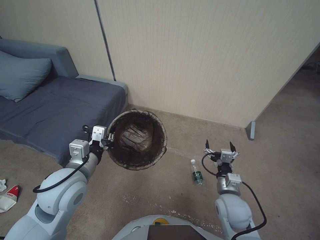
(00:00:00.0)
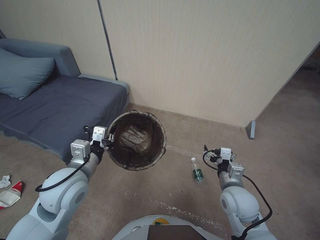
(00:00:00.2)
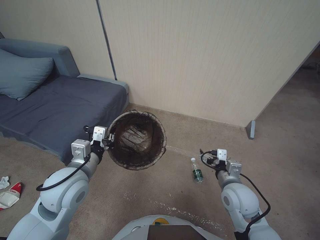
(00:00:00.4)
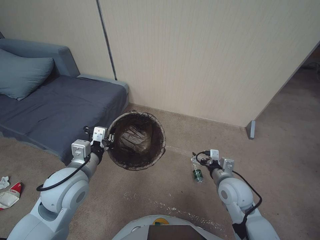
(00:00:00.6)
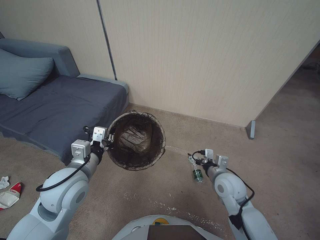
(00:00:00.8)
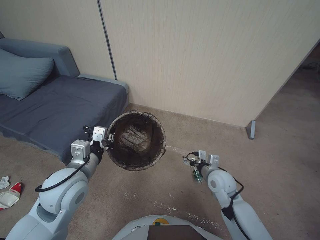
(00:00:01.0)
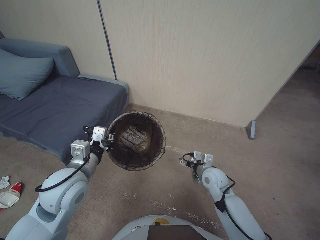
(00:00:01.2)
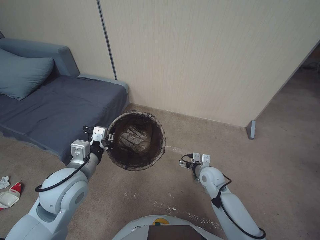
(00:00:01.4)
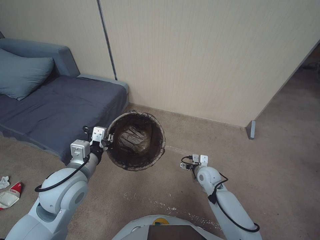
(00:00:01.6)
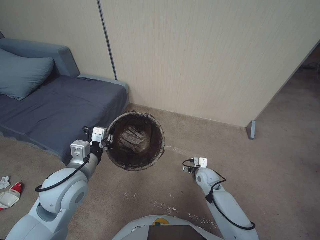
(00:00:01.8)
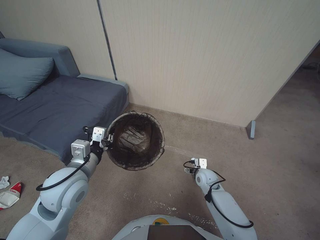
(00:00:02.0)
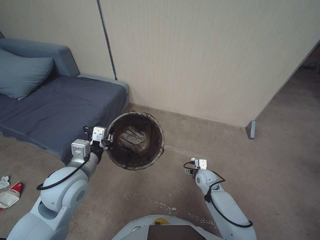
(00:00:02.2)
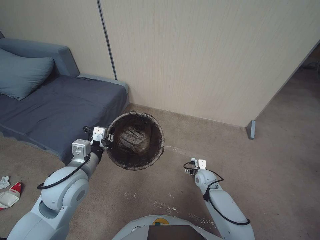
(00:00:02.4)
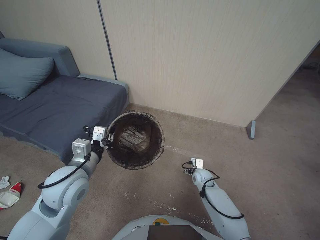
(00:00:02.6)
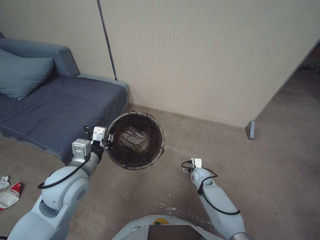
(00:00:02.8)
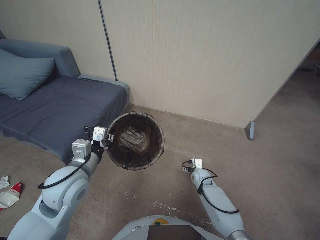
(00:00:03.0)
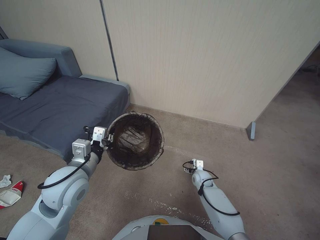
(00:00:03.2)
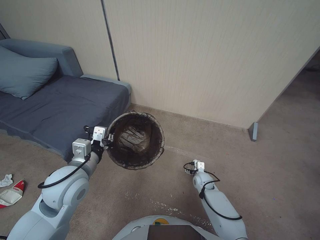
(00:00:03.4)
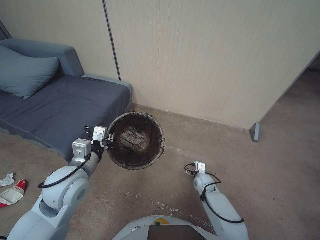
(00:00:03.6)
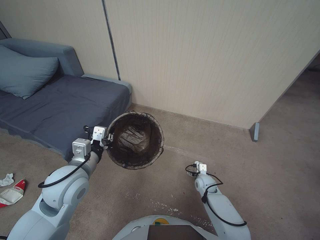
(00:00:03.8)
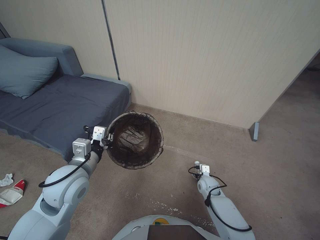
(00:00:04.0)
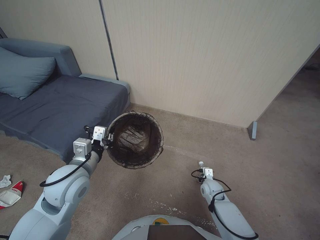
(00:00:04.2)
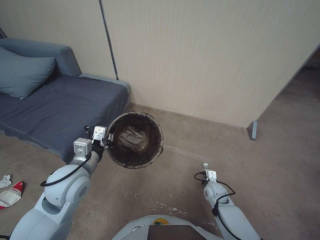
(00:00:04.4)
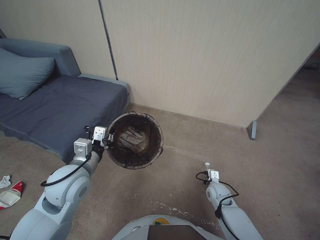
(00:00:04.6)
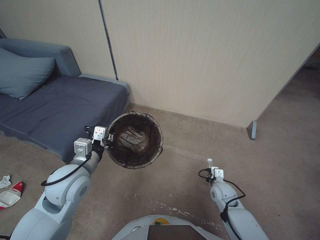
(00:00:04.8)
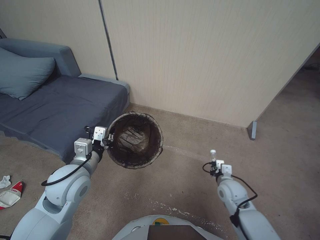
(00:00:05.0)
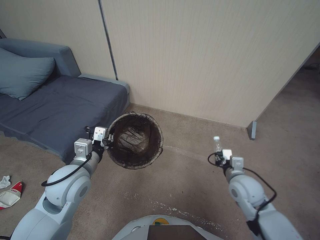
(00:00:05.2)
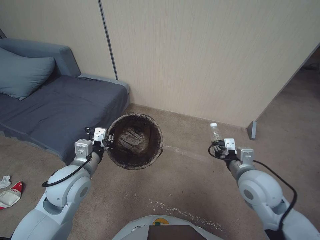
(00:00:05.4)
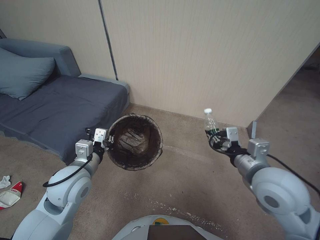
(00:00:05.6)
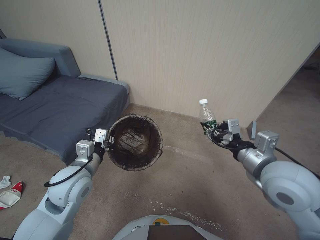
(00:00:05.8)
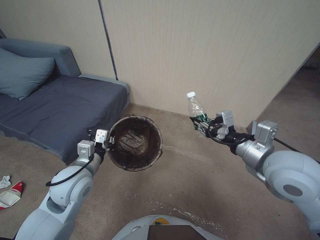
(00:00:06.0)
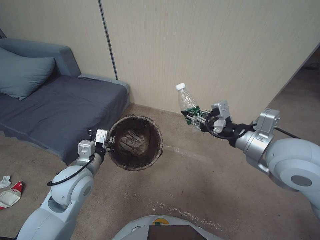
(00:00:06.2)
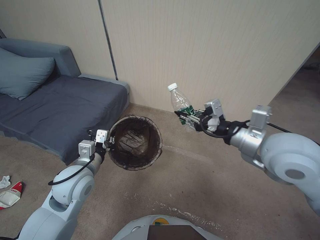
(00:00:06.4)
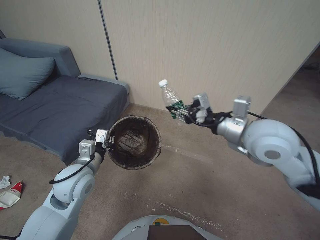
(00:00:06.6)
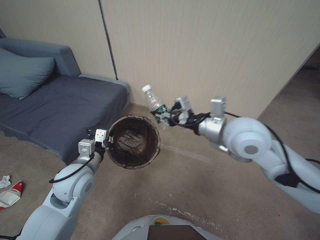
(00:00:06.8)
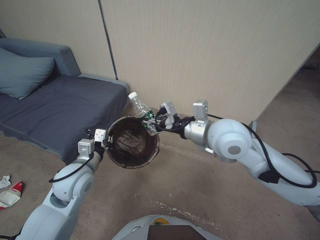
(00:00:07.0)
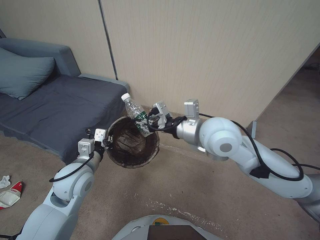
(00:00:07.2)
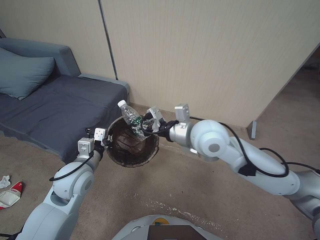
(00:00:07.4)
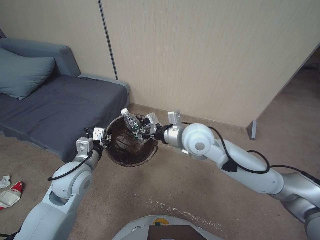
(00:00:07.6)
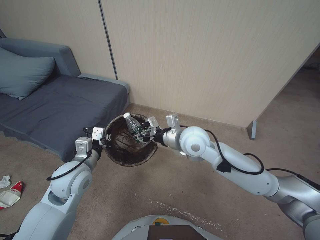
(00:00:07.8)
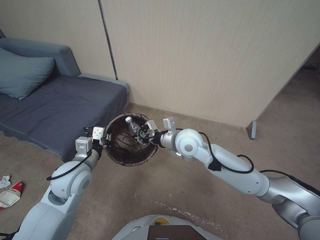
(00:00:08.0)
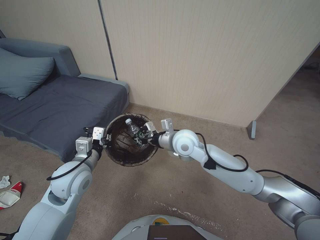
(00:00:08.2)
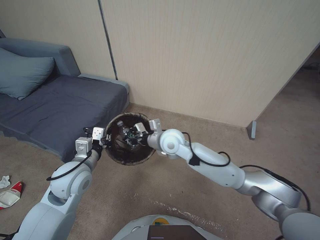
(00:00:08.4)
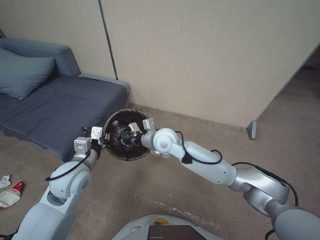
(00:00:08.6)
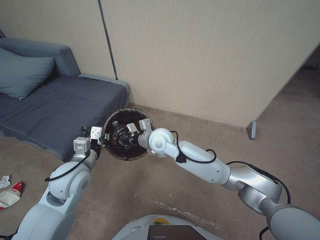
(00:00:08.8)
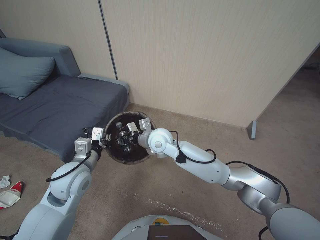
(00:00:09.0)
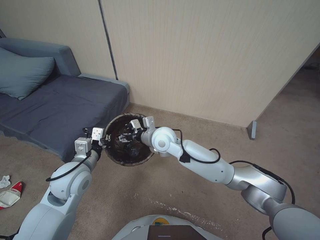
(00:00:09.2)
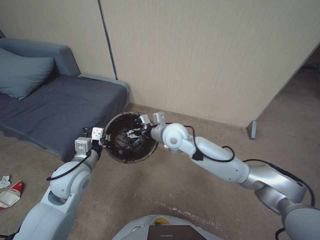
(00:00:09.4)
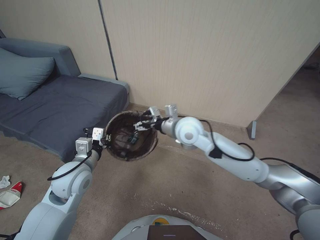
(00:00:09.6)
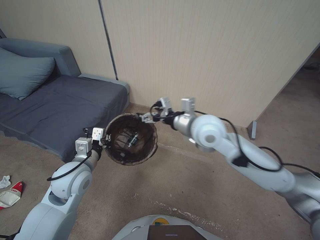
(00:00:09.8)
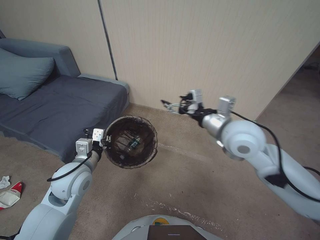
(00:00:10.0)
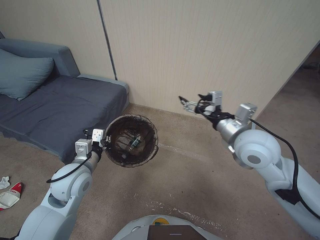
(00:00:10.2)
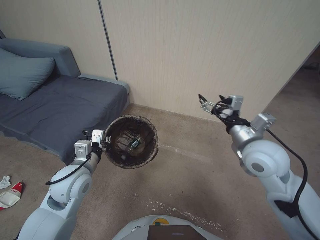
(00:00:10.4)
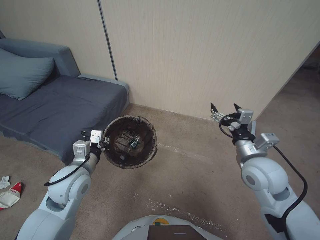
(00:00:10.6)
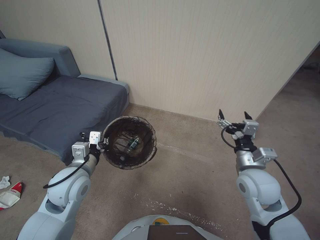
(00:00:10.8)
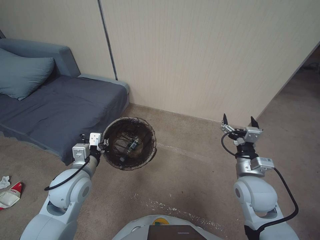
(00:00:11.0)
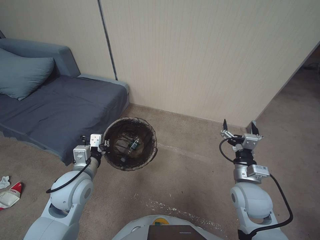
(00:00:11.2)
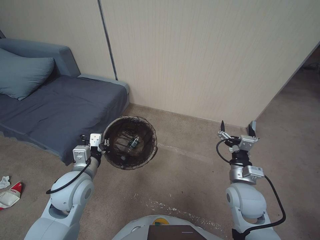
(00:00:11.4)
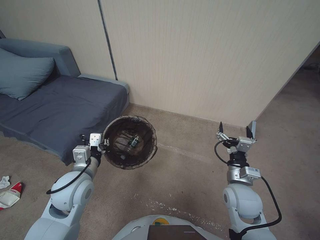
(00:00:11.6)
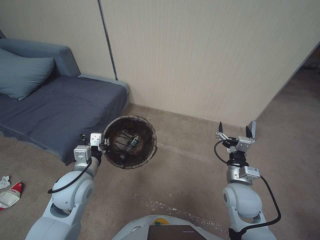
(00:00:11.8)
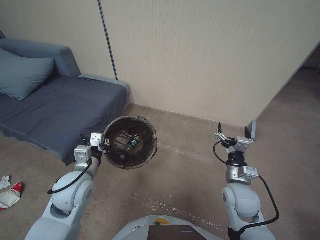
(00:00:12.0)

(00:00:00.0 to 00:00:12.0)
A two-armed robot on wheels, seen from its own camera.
Task of the whole recording: Pick up the trash bin, then pick up the garbage from the floor and place it into the trash bin.
00:00:00.0 - 00:00:01.6: The right gripper goes about 15 cm forward and downward.
00:00:01.6 - 00:00:03.0: The right gripper moves downward, roughly 10 cm.
00:00:03.0 - 00:00:04.4: The right gripper goes roughly 5 cm backward, and closes.
00:00:04.4 - 00:00:06.0: The right gripper goes roughly 40 cm upward.
00:00:06.0 - 00:00:07.6: The right gripper travels to the left and forward by roughly 20 cm.
00:00:07.6 - 00:00:09.0: The right gripper moves to the left, downward and forward, about 15 cm.
00:00:09.0 - 00:00:10.4: The right gripper heads to the right and backward, covering about 30 cm, and opens up.
00:00:10.4 - 00:00:12.0: The right gripper goes some 20 cm downward.

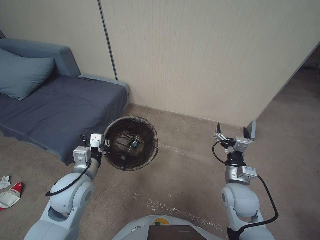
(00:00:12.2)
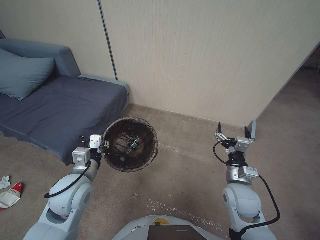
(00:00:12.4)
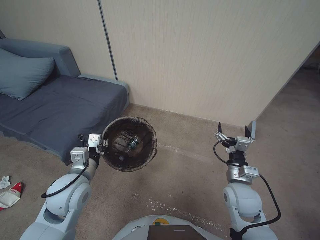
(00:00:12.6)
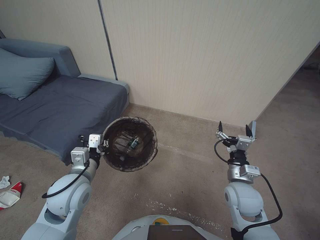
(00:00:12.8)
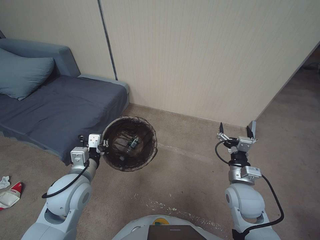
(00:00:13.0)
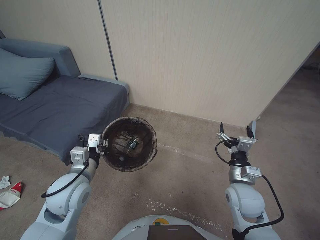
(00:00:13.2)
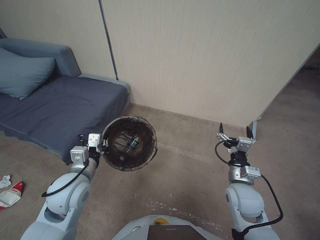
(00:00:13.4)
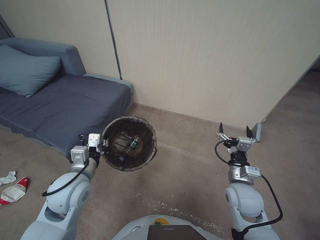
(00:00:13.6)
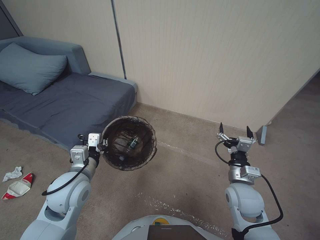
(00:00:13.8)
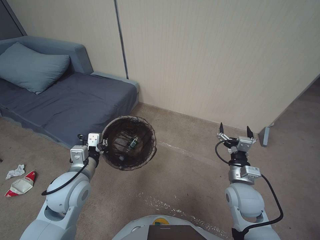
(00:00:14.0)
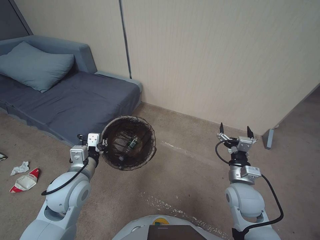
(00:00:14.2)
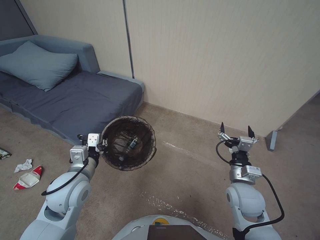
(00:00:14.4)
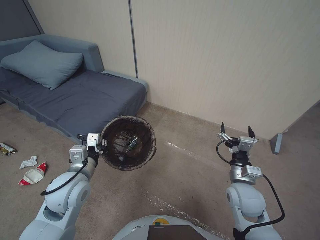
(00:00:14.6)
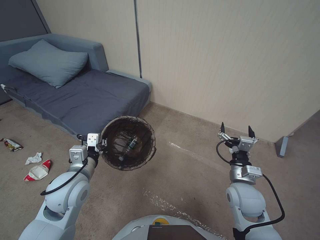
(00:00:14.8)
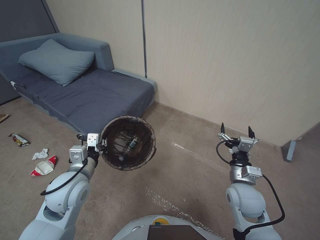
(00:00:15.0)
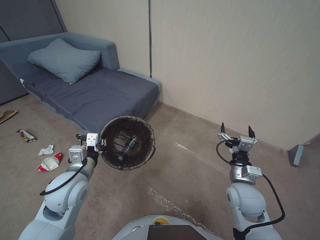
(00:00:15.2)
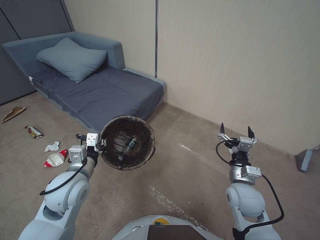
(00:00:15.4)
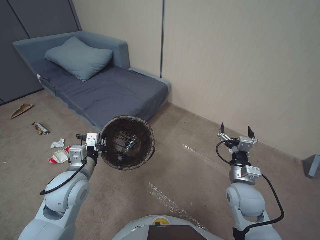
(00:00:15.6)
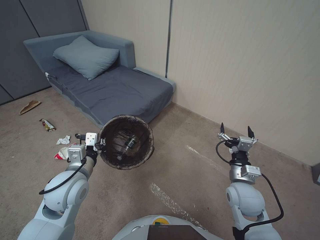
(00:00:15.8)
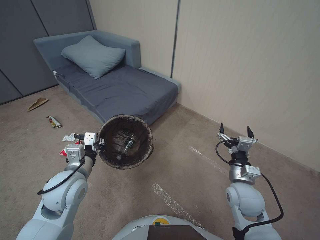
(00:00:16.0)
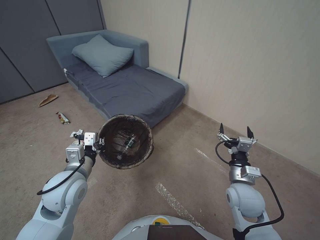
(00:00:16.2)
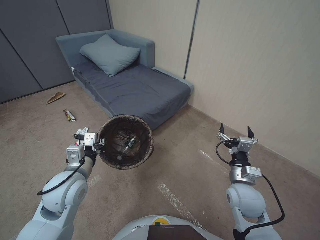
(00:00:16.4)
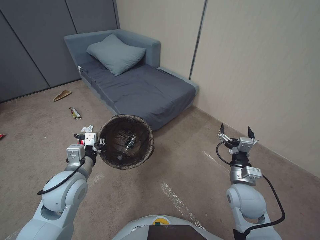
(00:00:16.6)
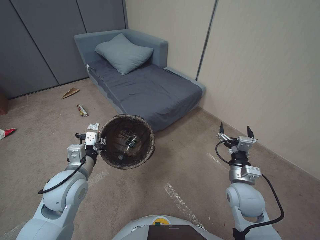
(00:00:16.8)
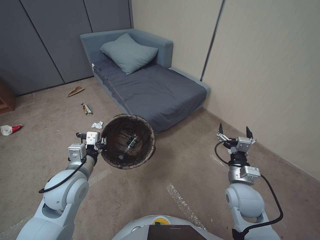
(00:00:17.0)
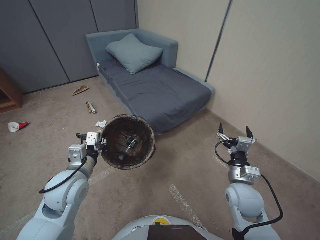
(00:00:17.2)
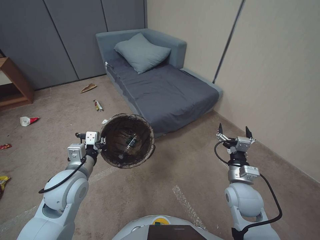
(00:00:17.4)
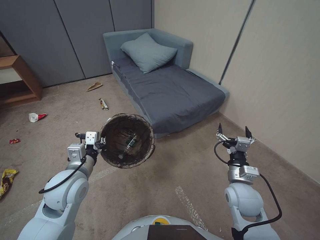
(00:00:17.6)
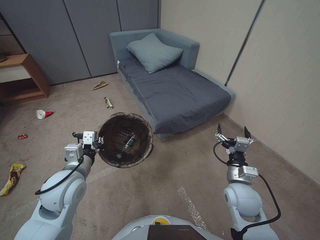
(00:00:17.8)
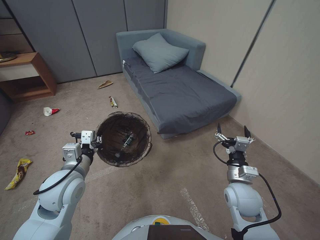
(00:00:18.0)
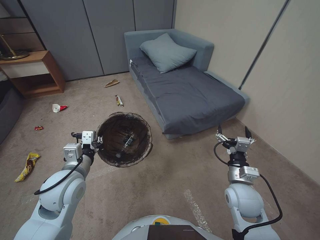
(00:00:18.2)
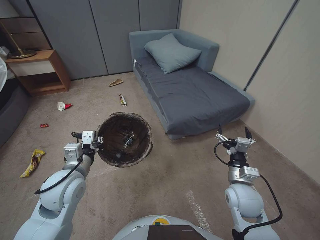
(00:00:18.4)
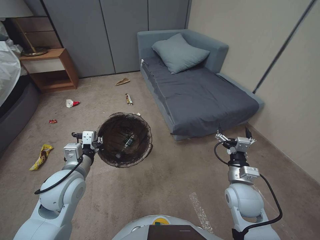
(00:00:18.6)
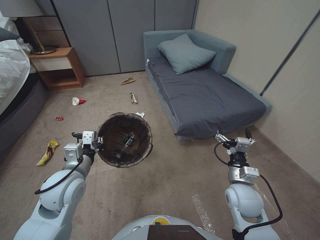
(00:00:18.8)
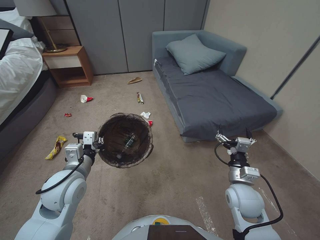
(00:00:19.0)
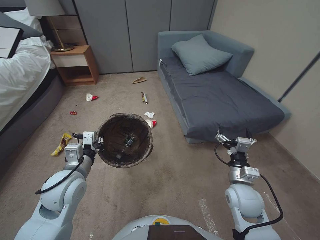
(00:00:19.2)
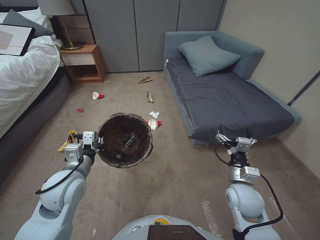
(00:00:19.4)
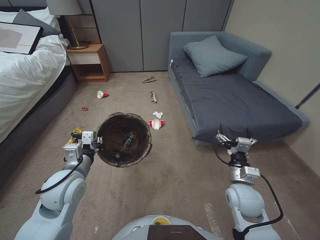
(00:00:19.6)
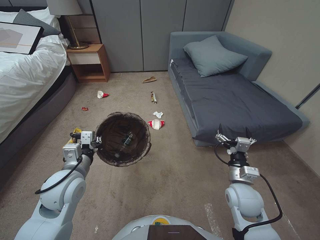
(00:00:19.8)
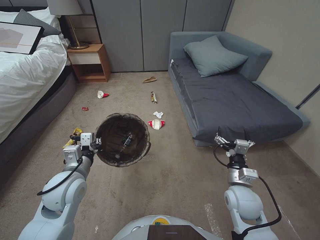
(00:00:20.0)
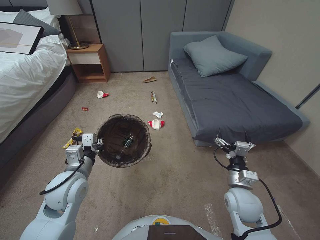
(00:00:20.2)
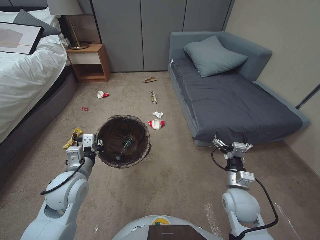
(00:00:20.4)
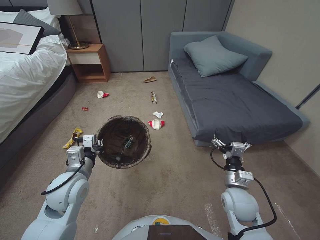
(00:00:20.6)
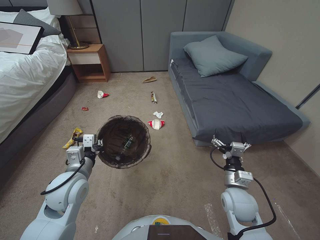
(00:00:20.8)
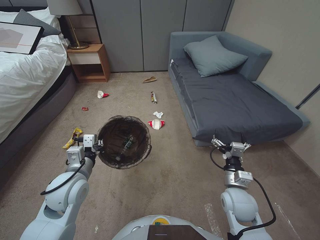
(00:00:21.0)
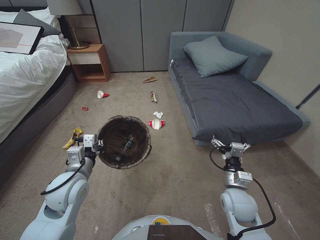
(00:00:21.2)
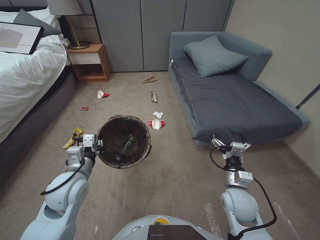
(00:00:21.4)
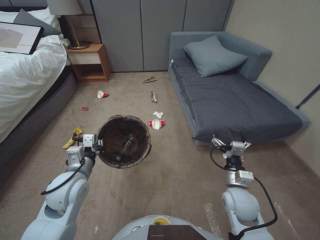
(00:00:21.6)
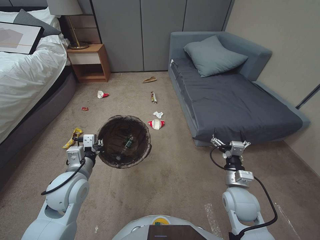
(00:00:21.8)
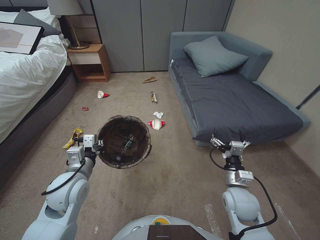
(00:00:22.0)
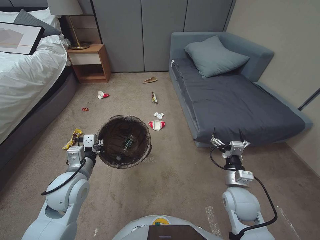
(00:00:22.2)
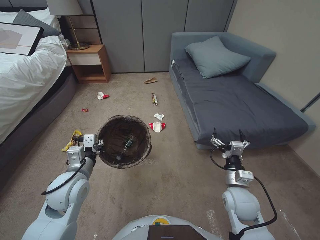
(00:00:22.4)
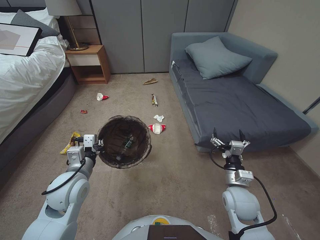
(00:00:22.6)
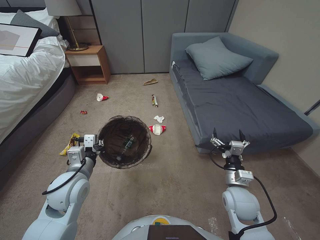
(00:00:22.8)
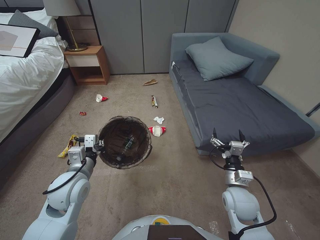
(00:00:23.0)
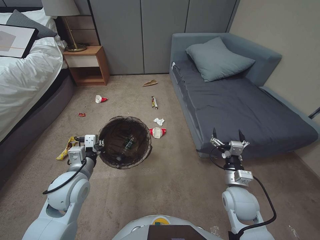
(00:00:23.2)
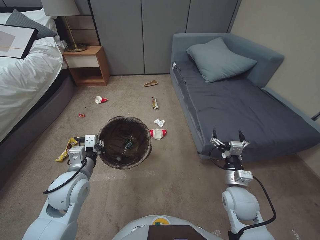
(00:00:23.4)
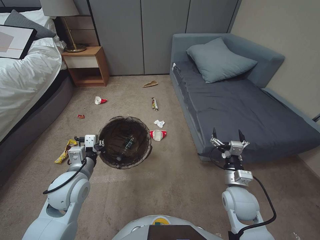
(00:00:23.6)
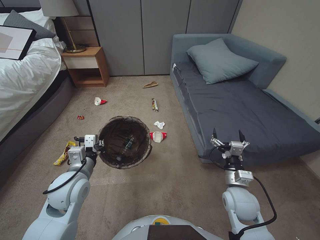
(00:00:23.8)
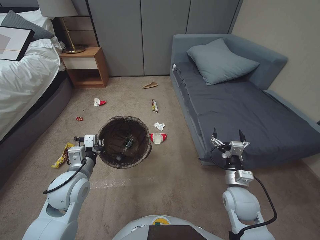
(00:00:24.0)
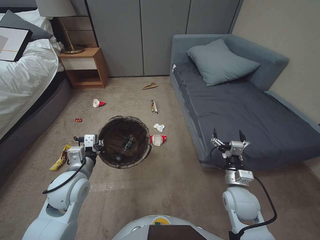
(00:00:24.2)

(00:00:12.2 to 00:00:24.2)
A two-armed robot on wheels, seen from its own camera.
Task of the whole recording: Pick up the trash bin, then pick up the garbage from the floor and place it into the trash bin.
00:00:12.2 - 00:00:13.8: Both grippers stay put.
00:00:19.8 - 00:00:21.2: The grippers move only a little.
00:00:21.2 - 00:00:24.2: Neither gripper changes place.
